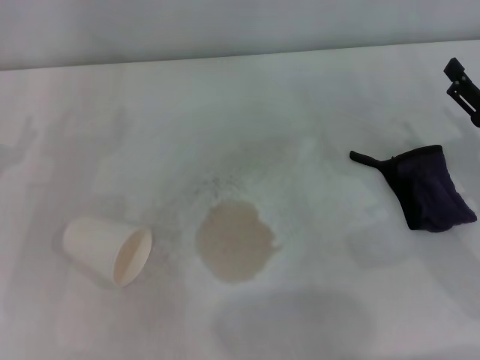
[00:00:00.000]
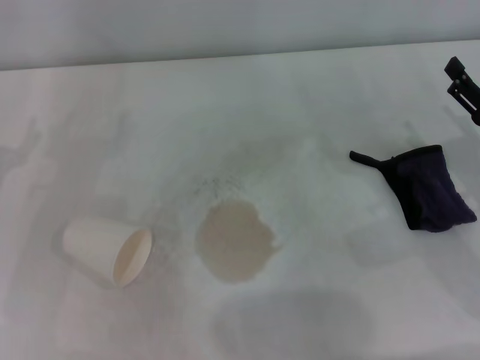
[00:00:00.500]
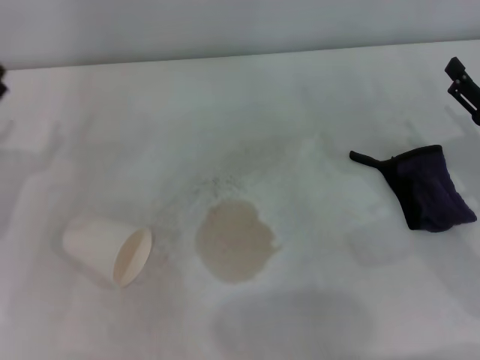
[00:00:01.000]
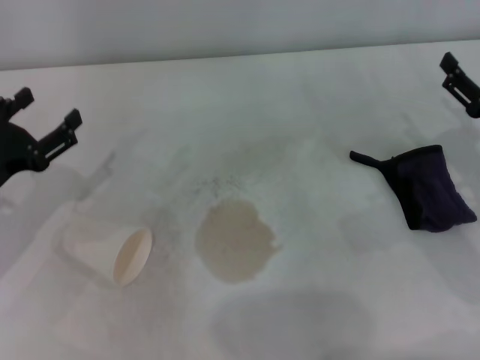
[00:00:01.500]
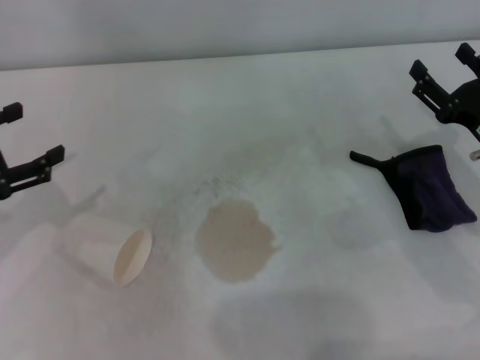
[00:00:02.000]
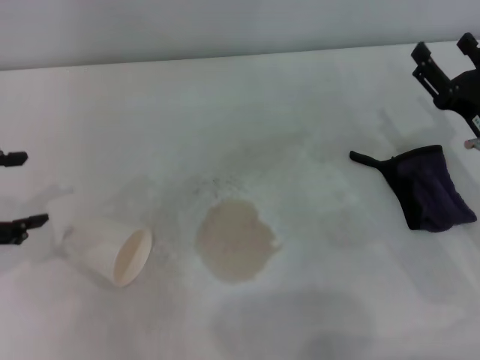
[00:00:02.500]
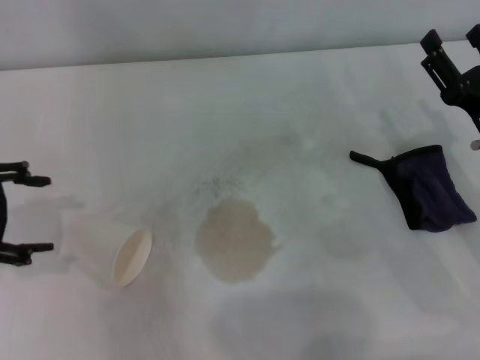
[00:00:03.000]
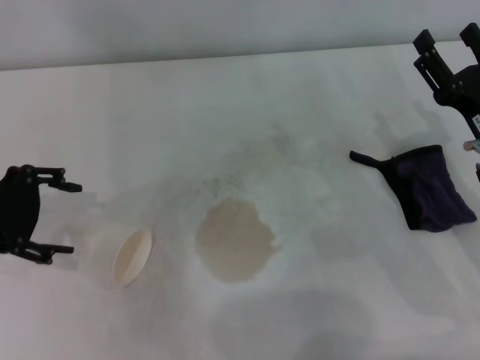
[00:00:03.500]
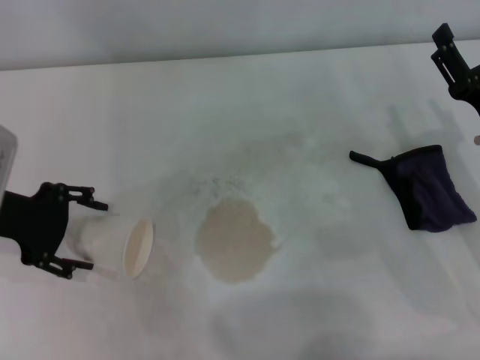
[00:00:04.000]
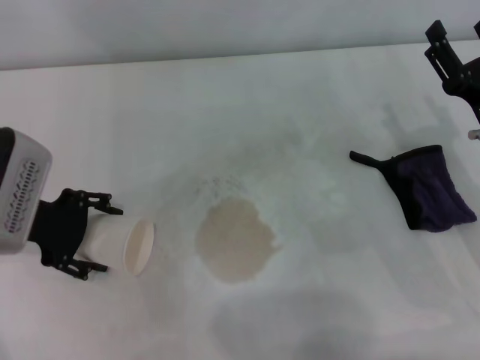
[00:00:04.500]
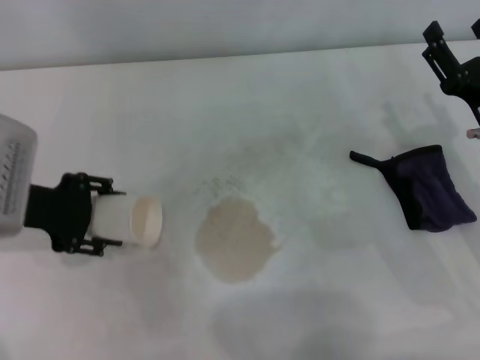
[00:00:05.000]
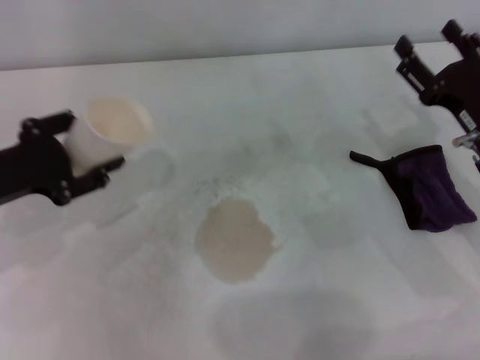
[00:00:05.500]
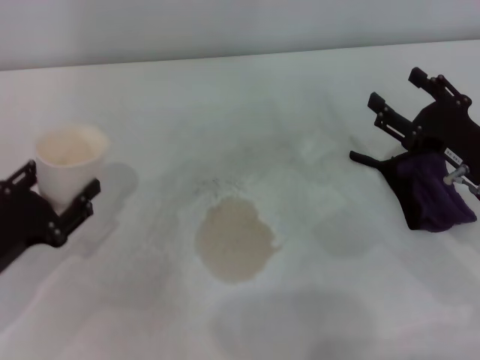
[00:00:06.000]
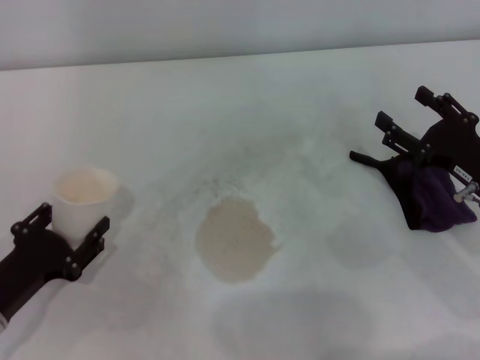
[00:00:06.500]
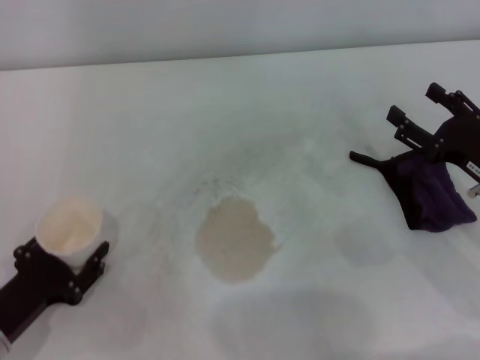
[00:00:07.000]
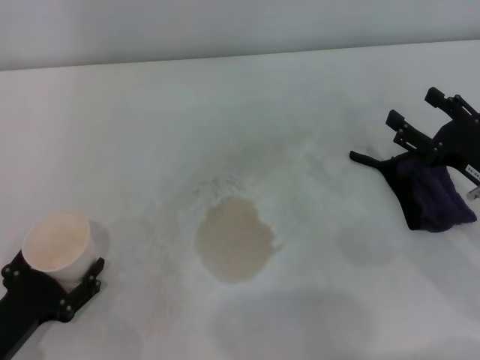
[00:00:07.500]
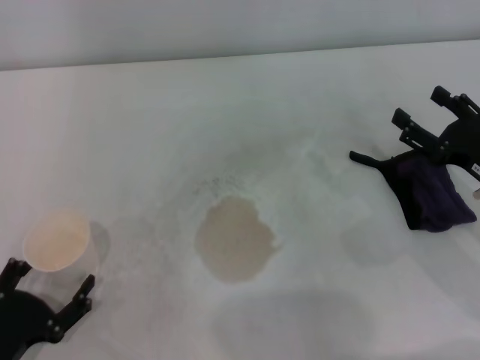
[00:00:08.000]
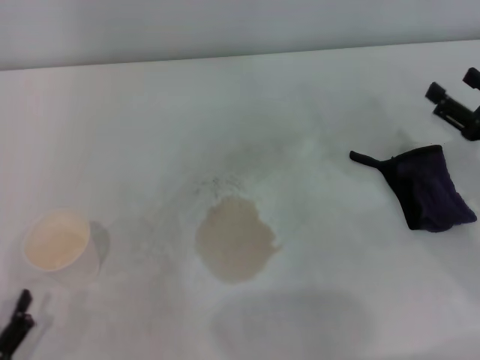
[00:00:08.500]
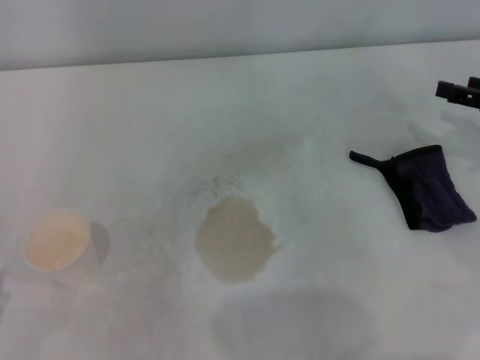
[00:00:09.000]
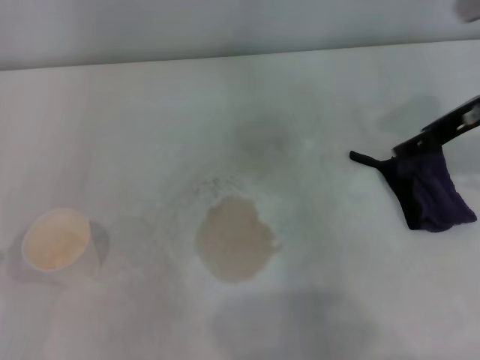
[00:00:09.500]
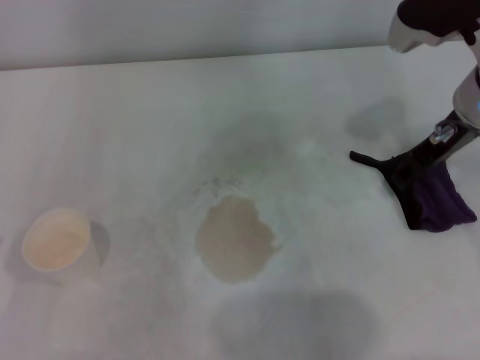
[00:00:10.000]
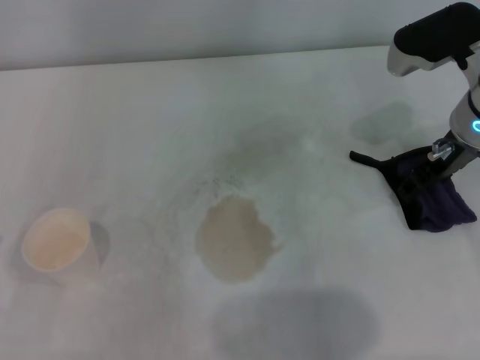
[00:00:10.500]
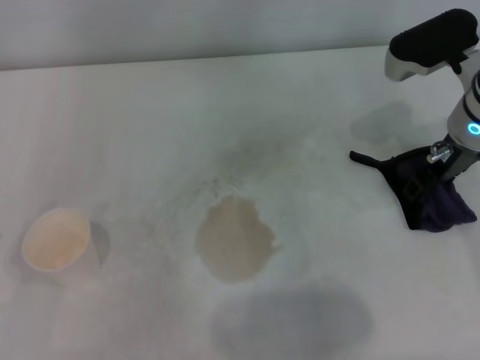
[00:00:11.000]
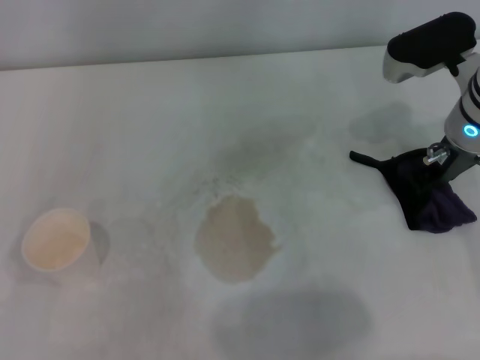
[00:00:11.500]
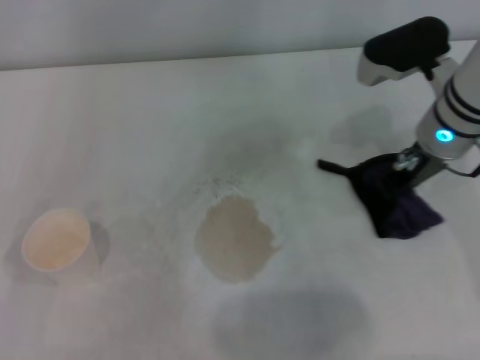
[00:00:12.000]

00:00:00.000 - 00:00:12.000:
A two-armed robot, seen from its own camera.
Step, 00:00:00.000 - 00:00:04.000: Grasp the paper cup with the left gripper.
Step, 00:00:04.500 - 00:00:07.000: Stand the paper cup upright with the left gripper.
Step, 00:00:07.500 - 00:00:11.500: Grasp the rag with the right gripper.
00:00:00.000 - 00:00:02.000: The left gripper moves roughly 5 cm.
00:00:02.000 - 00:00:04.000: The left gripper travels to the right by roughly 5 cm.
00:00:04.000 - 00:00:06.000: The left gripper heads downward and backward, covering some 15 cm, and closes.
00:00:06.000 - 00:00:08.000: The left gripper moves backward and downward, roughly 10 cm, and opens.
00:00:08.000 - 00:00:10.000: The left gripper is displaced to the left and upward by some 10 cm; the right gripper heads upward, forward and to the left, covering roughly 20 cm.
00:00:10.000 - 00:00:12.000: The right gripper closes.

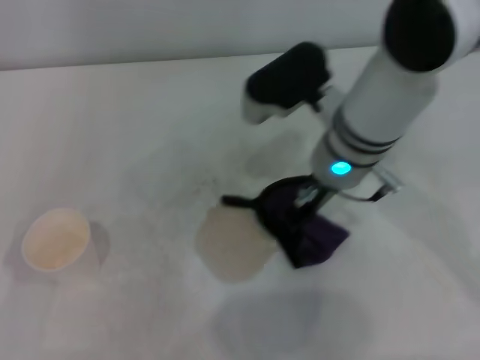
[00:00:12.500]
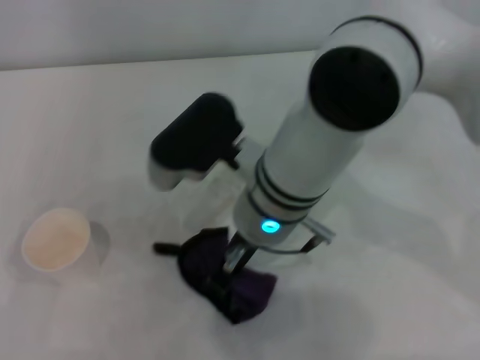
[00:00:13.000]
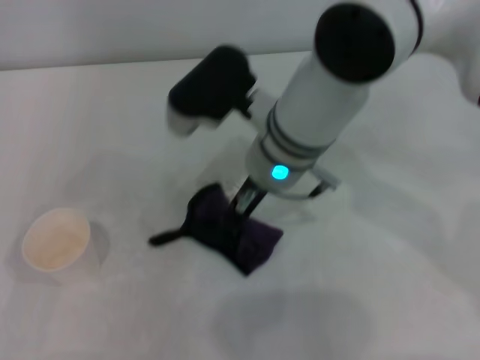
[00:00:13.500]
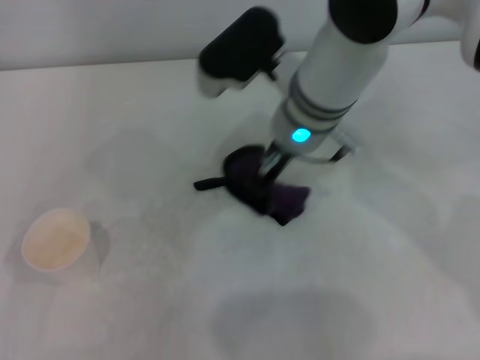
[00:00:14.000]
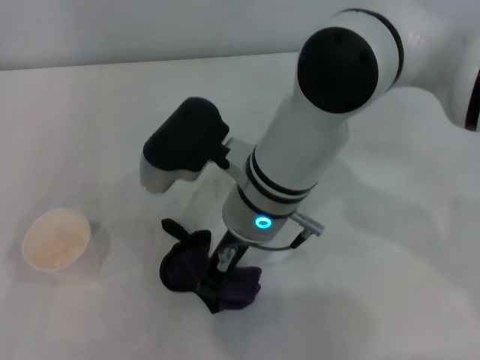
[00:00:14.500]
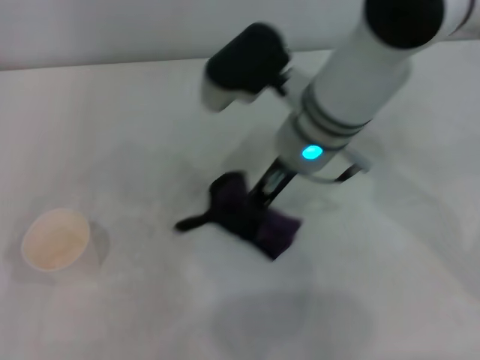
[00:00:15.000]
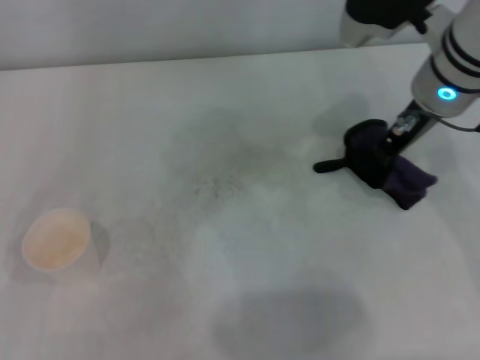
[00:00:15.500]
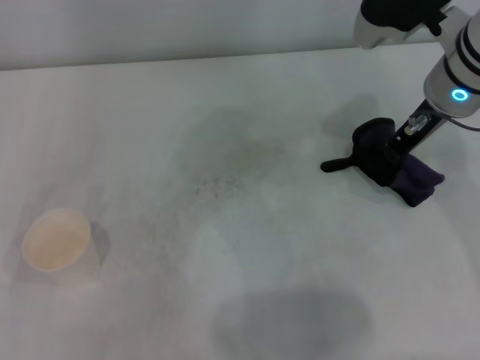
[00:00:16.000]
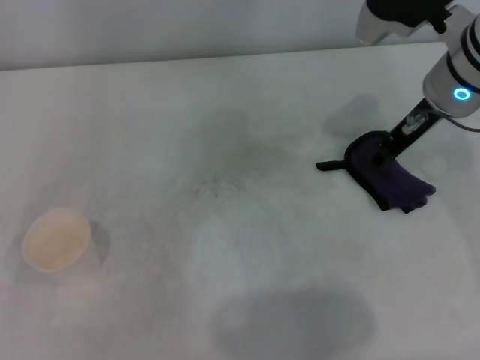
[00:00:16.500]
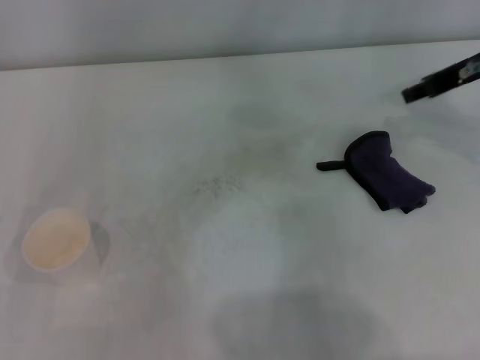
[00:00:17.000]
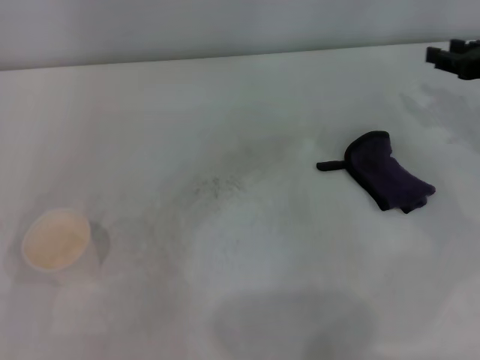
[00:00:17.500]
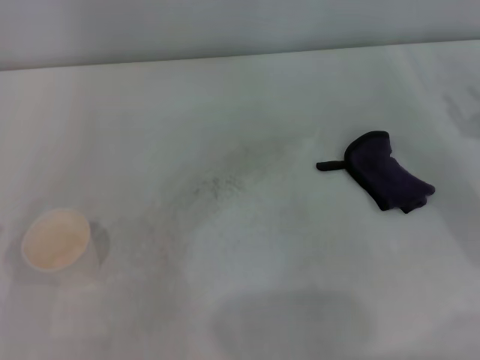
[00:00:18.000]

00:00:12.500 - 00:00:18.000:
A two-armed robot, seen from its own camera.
Step, 00:00:12.500 - 00:00:15.500: Wipe the stains off the table with the right gripper.
00:00:12.500 - 00:00:14.500: The right gripper swings left and right, approximately 10 cm each way, with 2 reversals.
00:00:14.500 - 00:00:16.000: The right gripper shifts approximately 20 cm to the right.
00:00:16.000 - 00:00:18.000: The right gripper travels to the right, downward and backward by roughly 20 cm, and opens.
